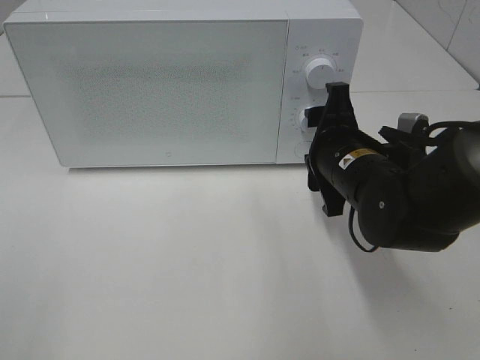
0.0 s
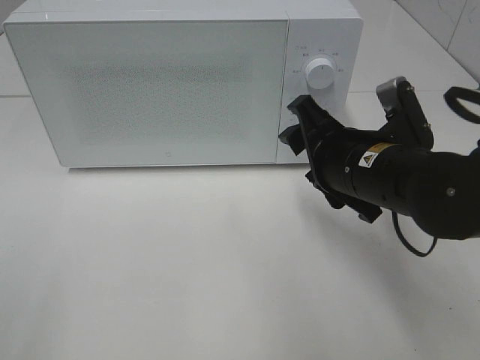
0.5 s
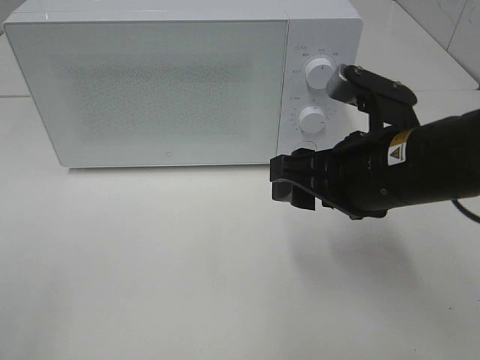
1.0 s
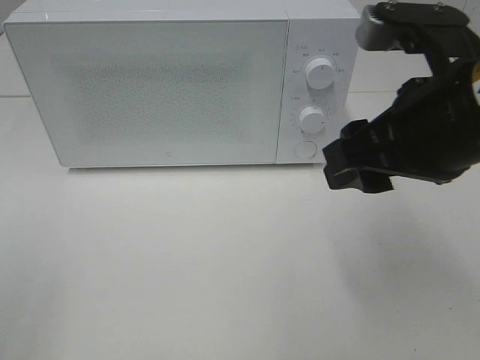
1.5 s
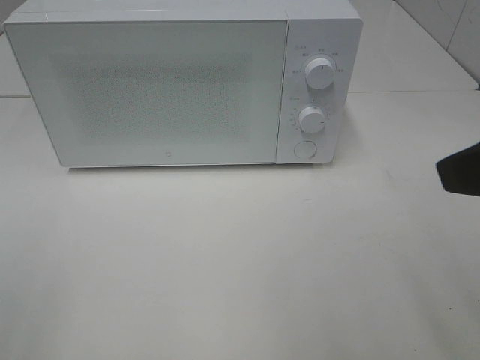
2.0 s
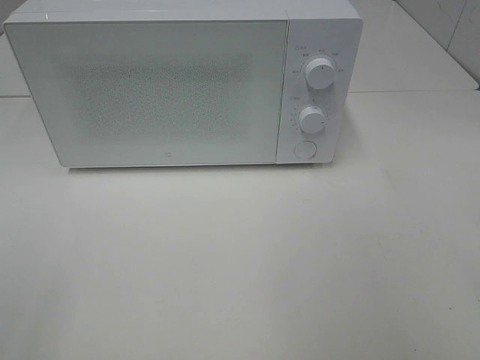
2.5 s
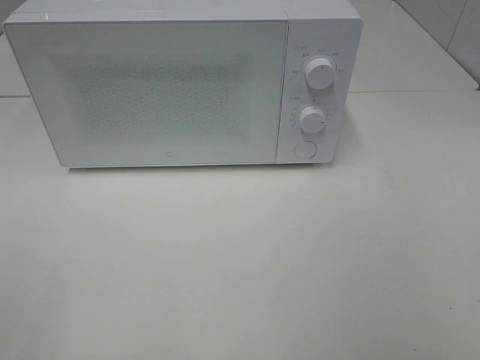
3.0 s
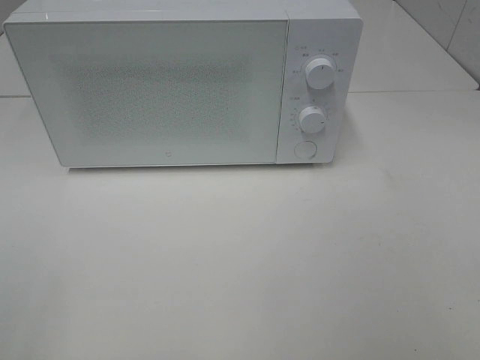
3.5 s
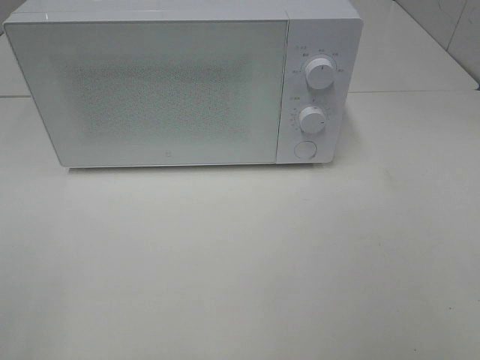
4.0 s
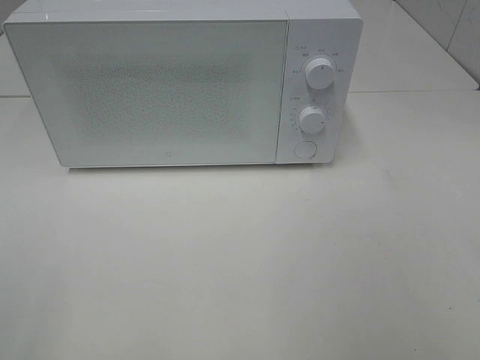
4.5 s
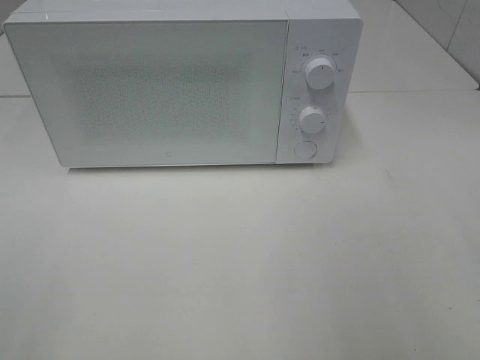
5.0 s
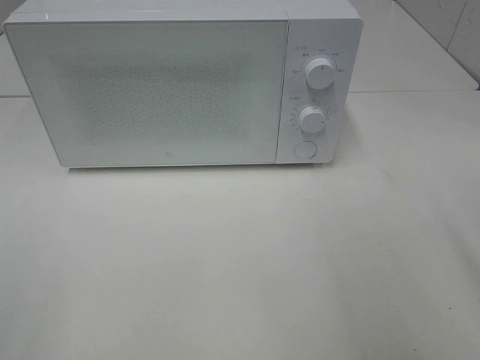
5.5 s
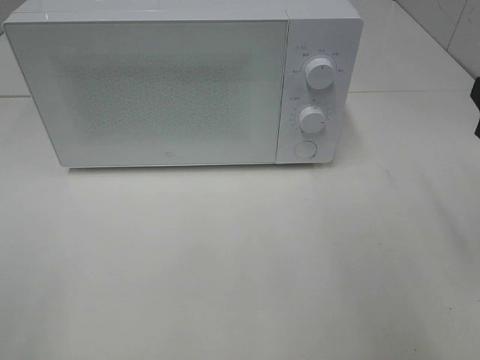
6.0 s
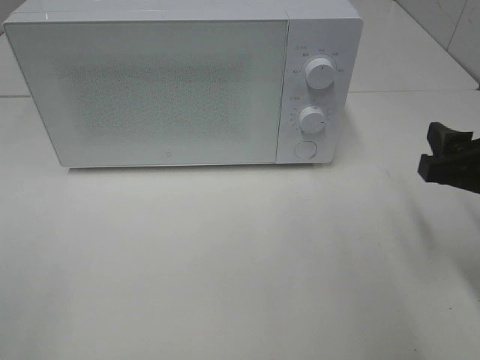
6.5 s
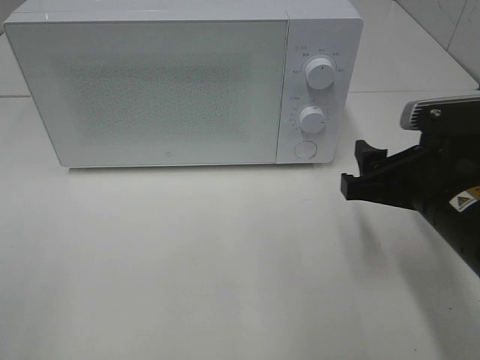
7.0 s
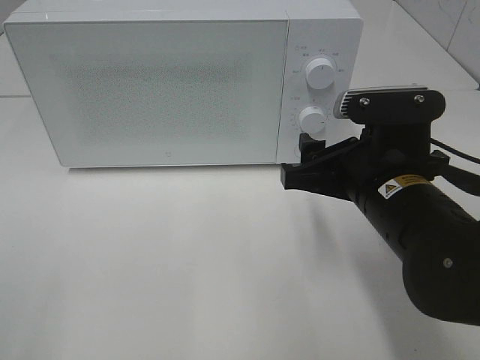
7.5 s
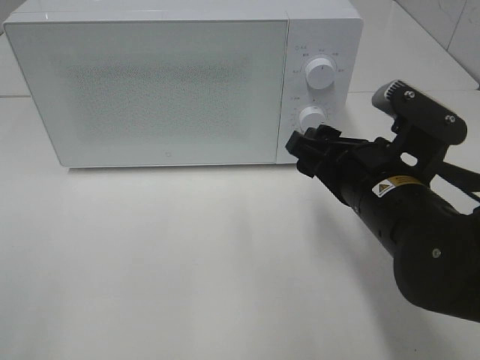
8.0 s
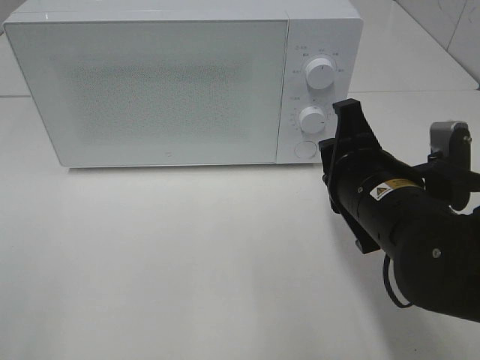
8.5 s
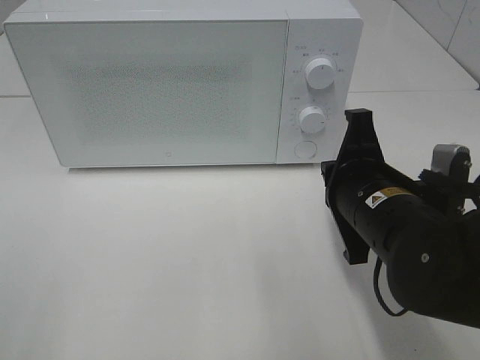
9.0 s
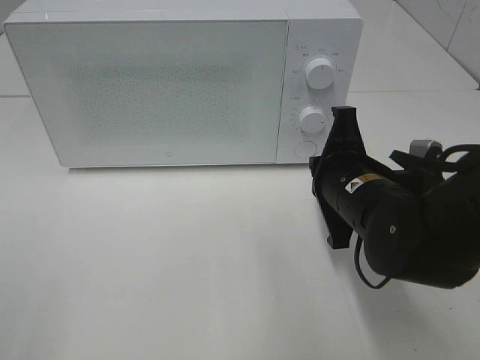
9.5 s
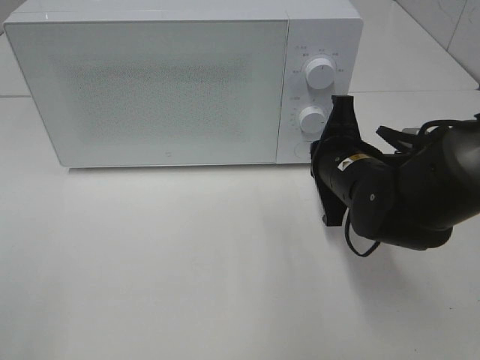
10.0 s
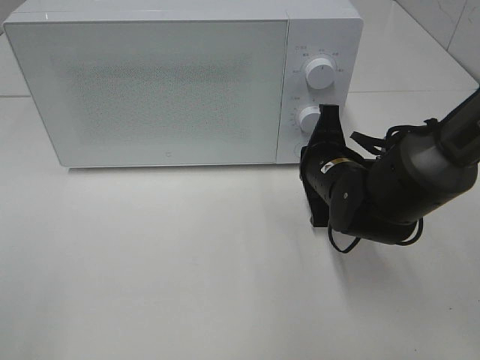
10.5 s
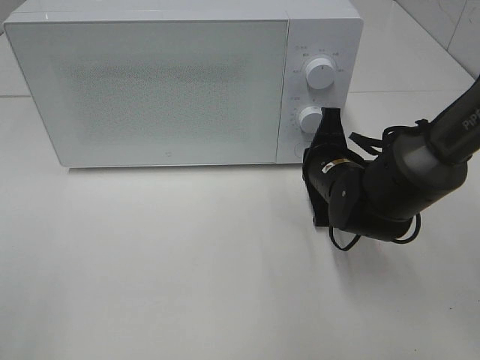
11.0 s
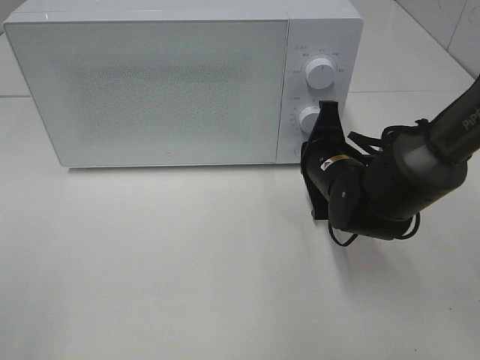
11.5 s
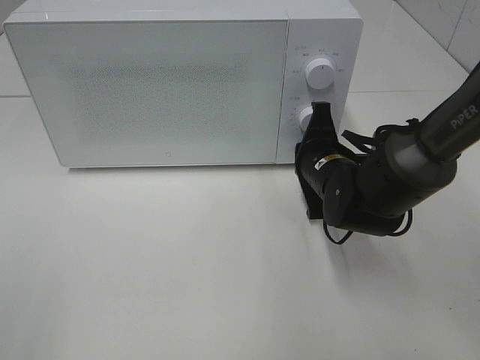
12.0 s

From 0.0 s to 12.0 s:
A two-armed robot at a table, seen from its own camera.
Task of the whole recording: Heat the burger.
From 0.0 s to 2.0 s: The right gripper goes roughly 25 cm upward, backward and to the right.
From 2.0 s to 4.0 s: The right gripper travels backward and to the right by some 15 cm.
From 6.0 s to 8.0 s: The right gripper heads to the left and downward, covering some 15 cm.
From 8.0 s to 10.0 s: The right gripper heads forward, covering roughly 10 cm, and closes.
From 10.0 s to 12.0 s: The right gripper moves roughly 5 cm.

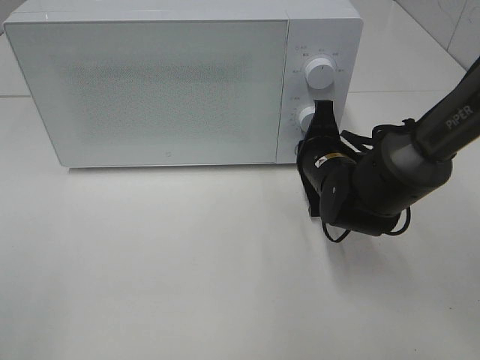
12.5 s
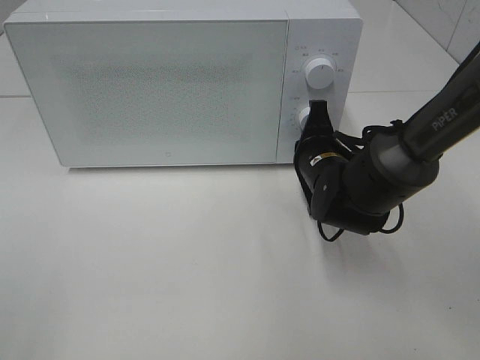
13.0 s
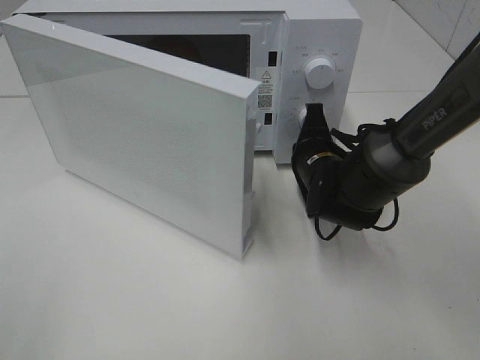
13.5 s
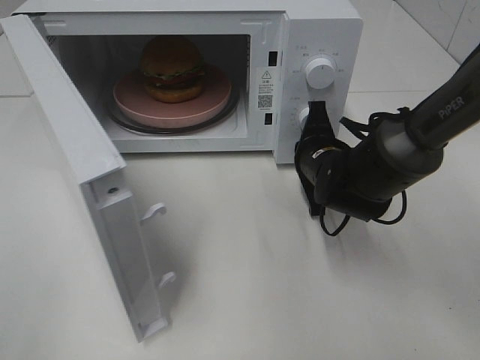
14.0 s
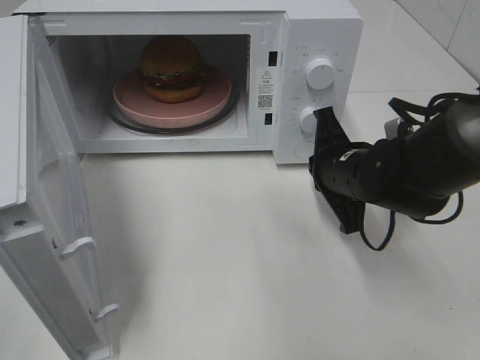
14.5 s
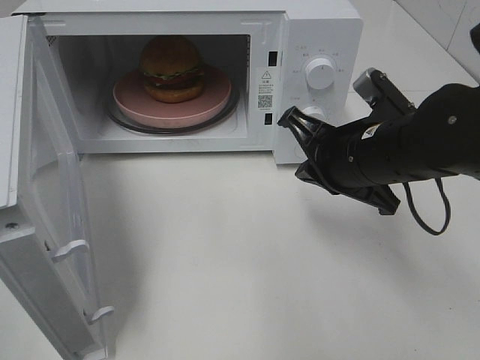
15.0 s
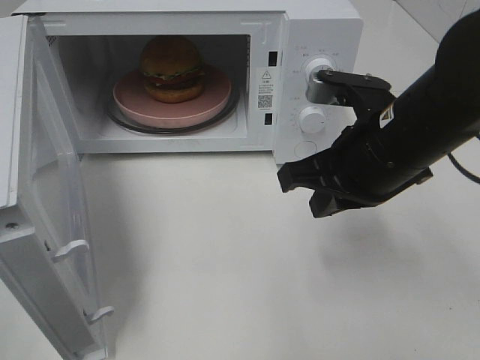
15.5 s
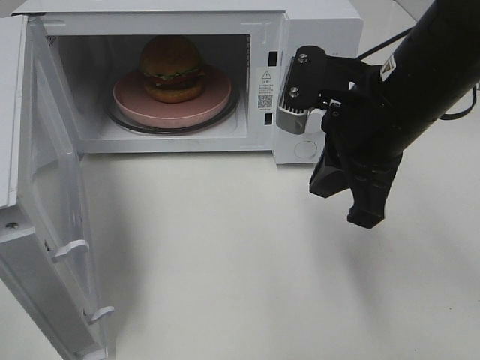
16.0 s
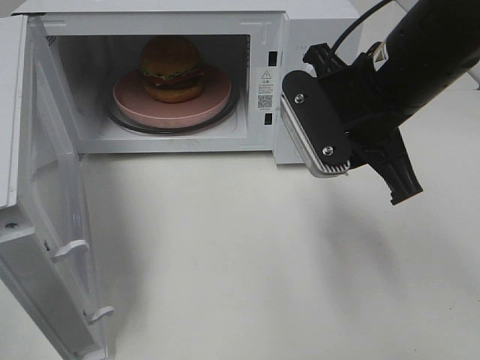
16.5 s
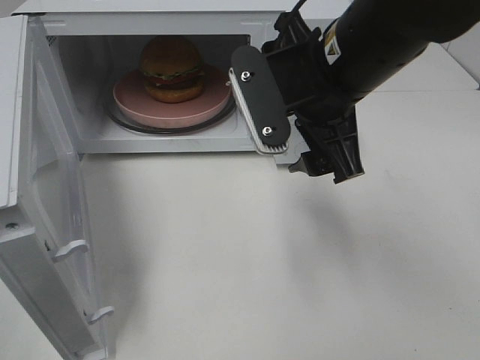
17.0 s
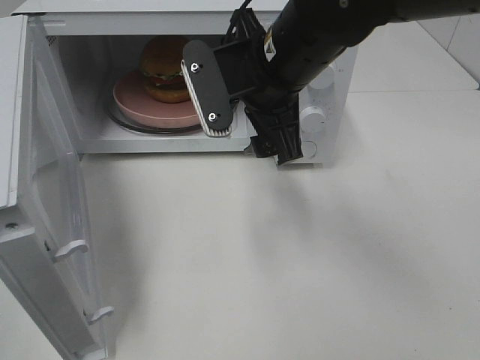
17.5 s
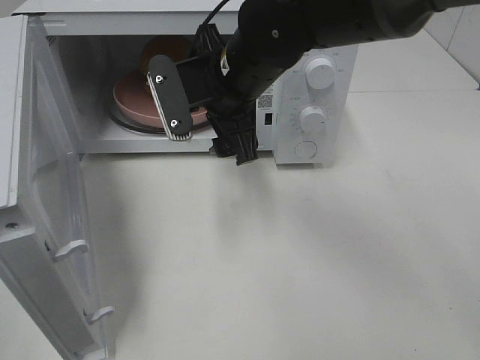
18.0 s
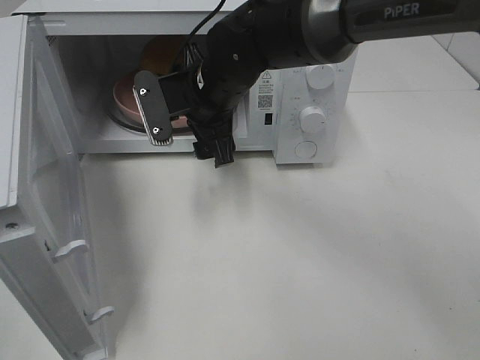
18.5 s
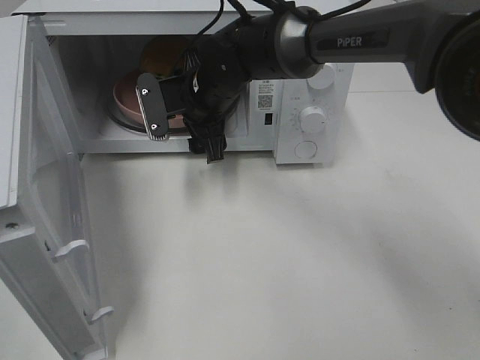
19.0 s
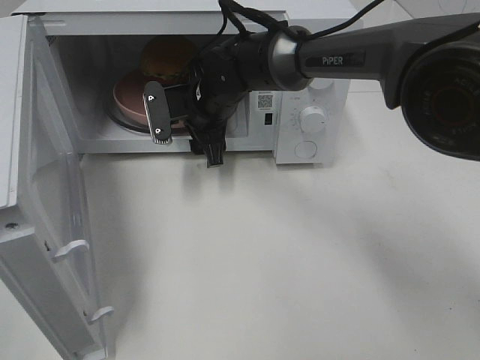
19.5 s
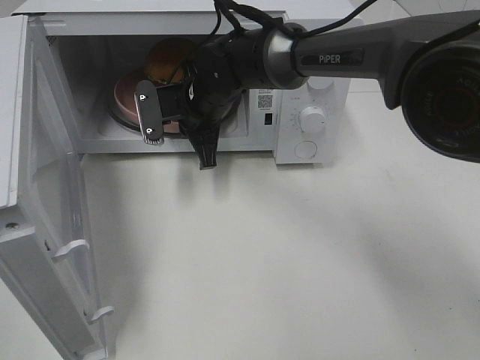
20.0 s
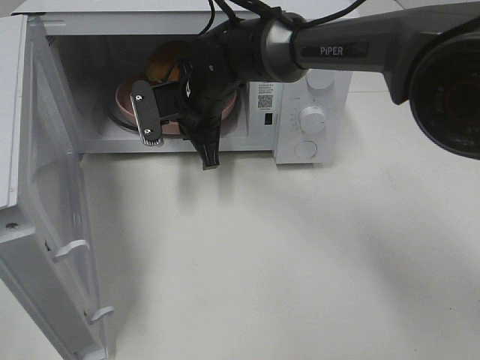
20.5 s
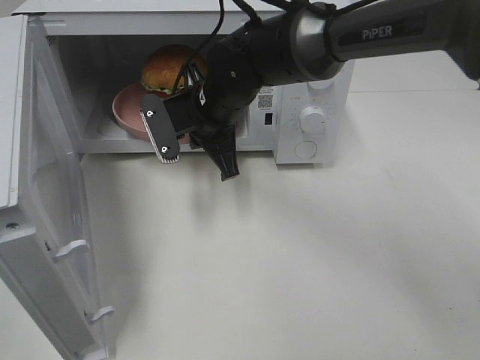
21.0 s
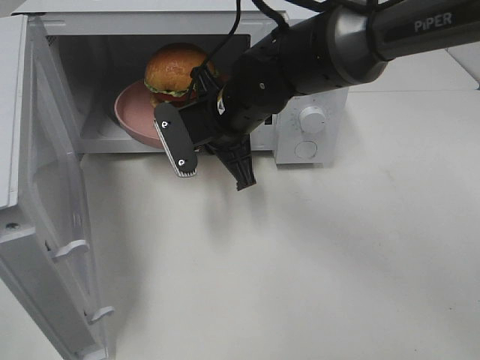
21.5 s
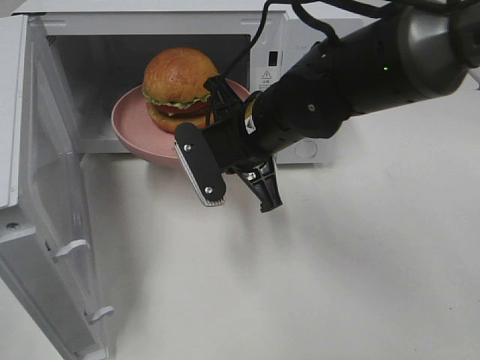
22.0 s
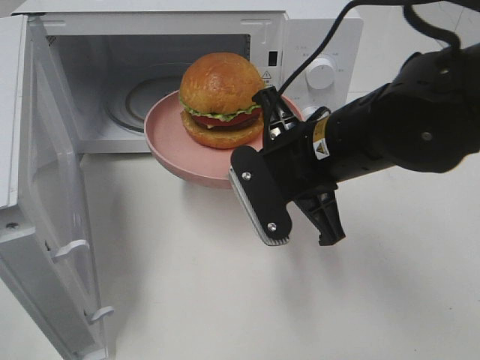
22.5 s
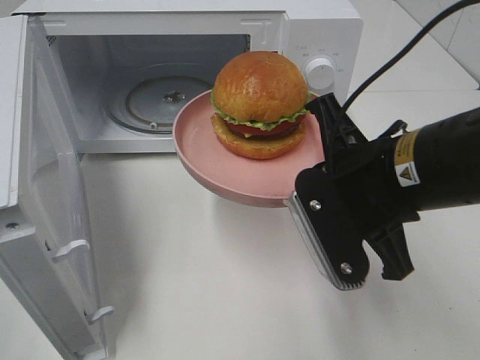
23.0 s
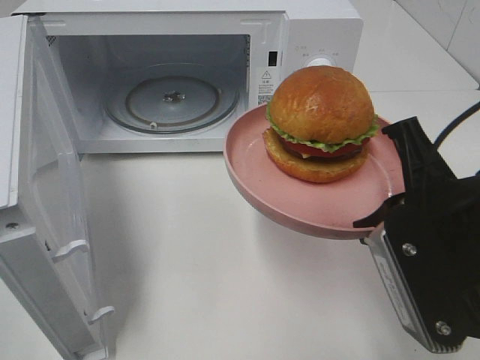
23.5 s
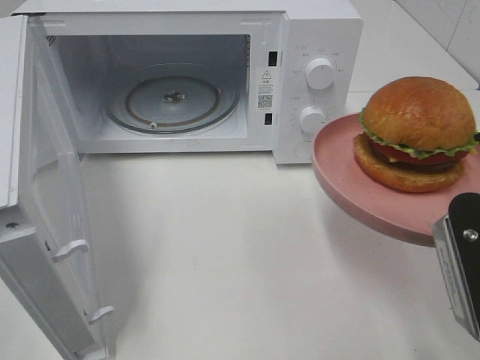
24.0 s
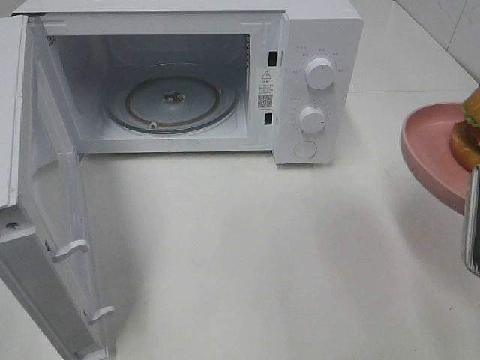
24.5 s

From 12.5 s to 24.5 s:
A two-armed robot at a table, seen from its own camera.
Task of the whole recording: Heat the burger.
Step, from 14.5 s to 20.0 s: Right hand: grab the plate with the hamburger.
From 14.5 s to 16.5 s: The right gripper is displaced upward by roughly 15 cm, and opens.
From 16.5 s to 18.5 s: The right gripper heads to the left, forward and downward, covering about 20 cm, and opens.
From 18.5 s to 20.5 s: The right gripper shifts by about 5 cm, and closes up.
From 20.5 s to 22.5 s: The right gripper shifts roughly 20 cm backward and to the right.
From 22.5 s to 24.5 s: The right gripper is displaced to the right and backward by some 20 cm.

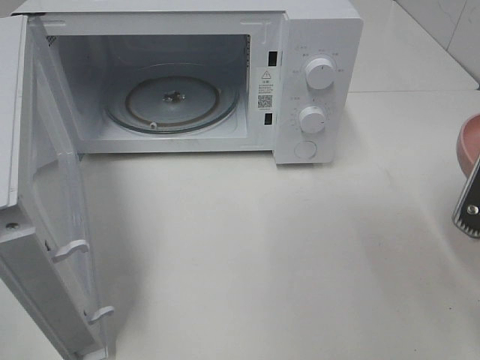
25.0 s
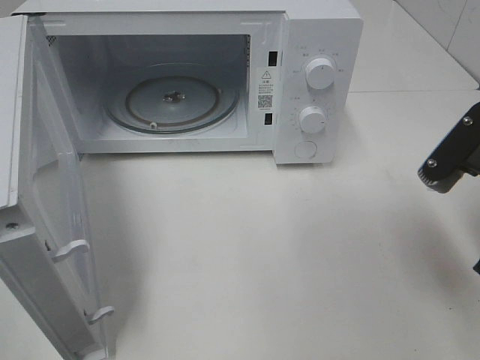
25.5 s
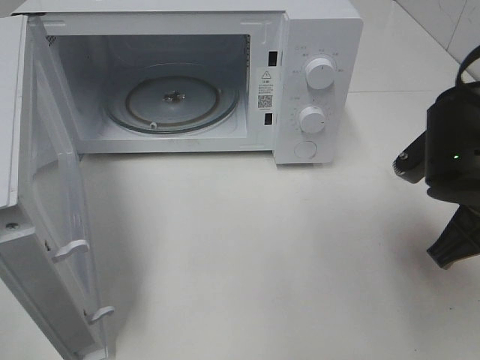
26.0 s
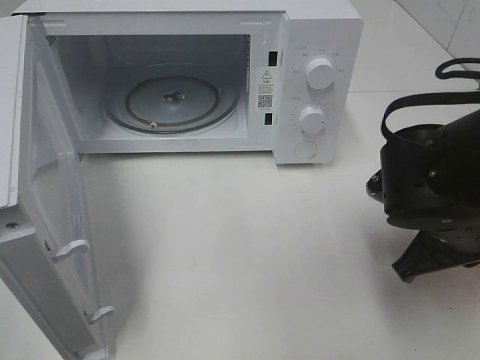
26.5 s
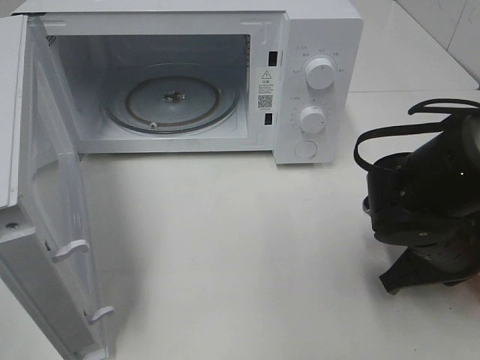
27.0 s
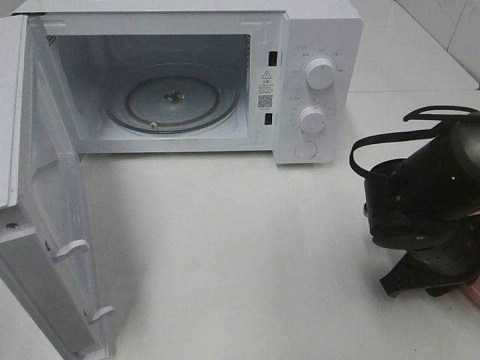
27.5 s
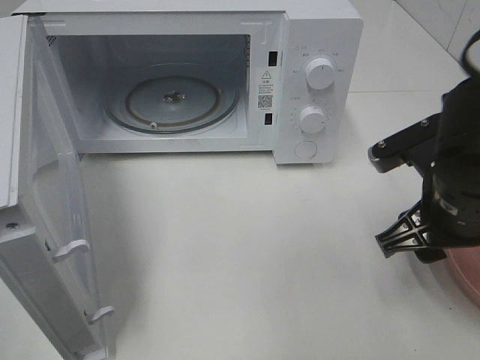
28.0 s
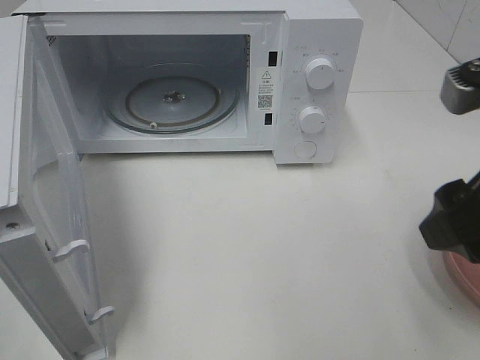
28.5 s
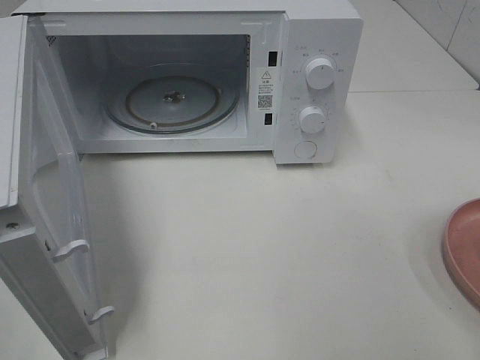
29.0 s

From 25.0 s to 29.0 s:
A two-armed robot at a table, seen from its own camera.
Task of the whole recording: Heat the burger.
Step, from 25.0 s to 27.5 s: Right hand: place the plate on the table.
From 25.0 s to 27.0 s: The right gripper moves downward and forward, approximately 15 cm.
From 27.0 s to 29.0 s: The right gripper is displaced upward and backward by approximately 25 cm, and opens up.
